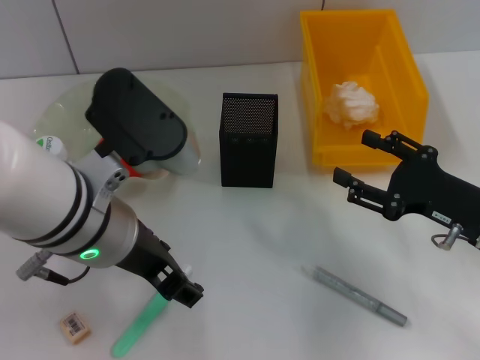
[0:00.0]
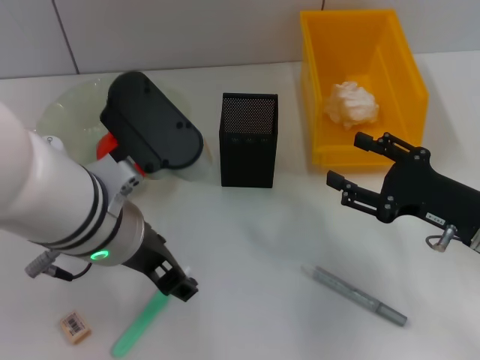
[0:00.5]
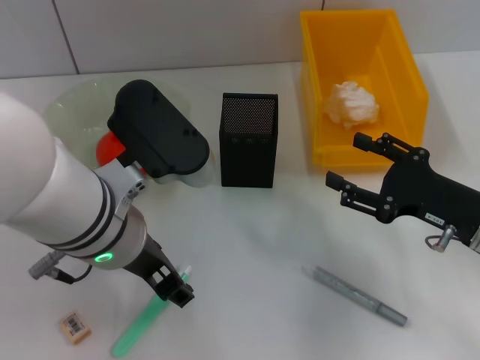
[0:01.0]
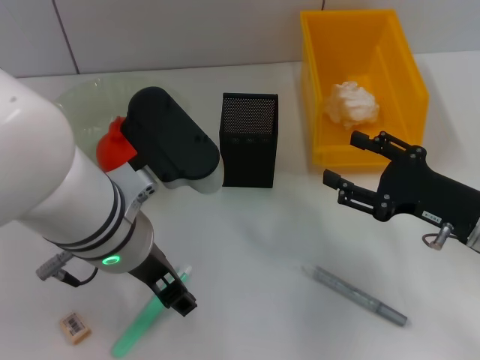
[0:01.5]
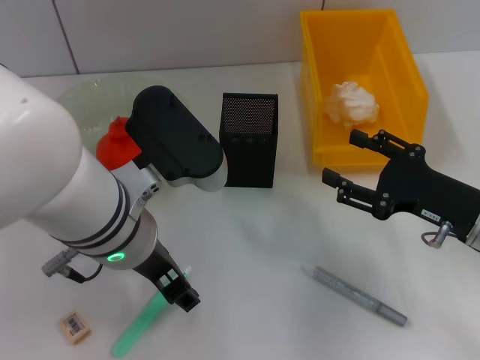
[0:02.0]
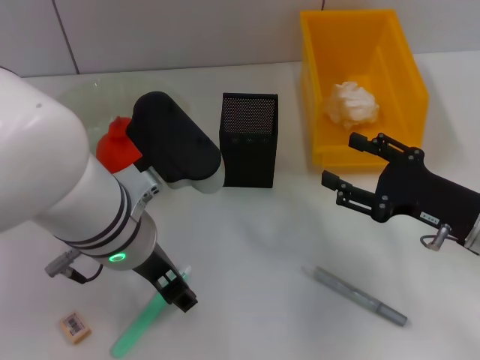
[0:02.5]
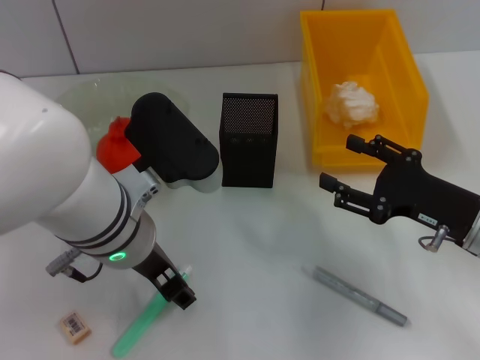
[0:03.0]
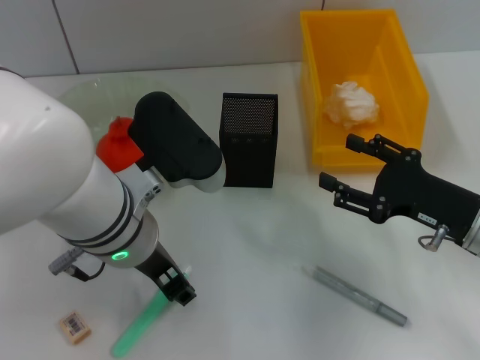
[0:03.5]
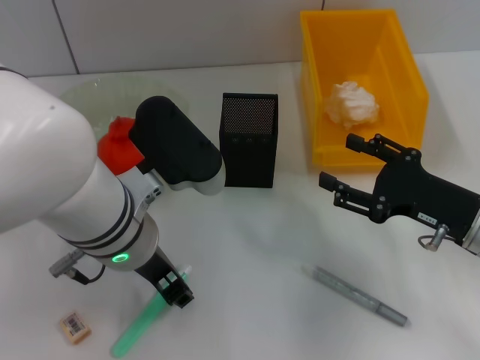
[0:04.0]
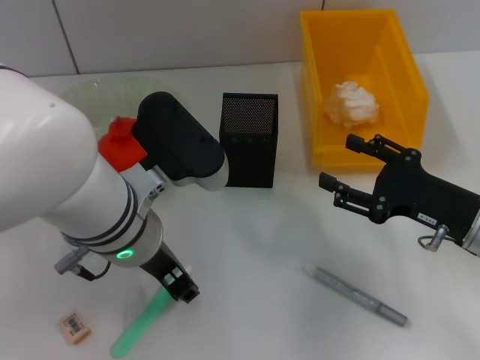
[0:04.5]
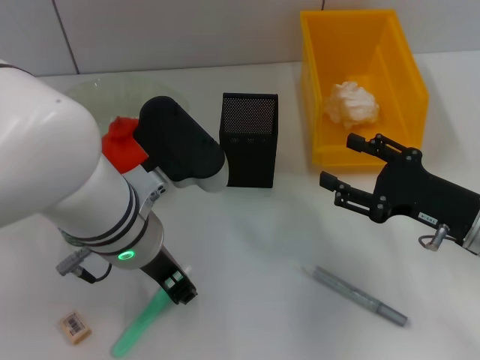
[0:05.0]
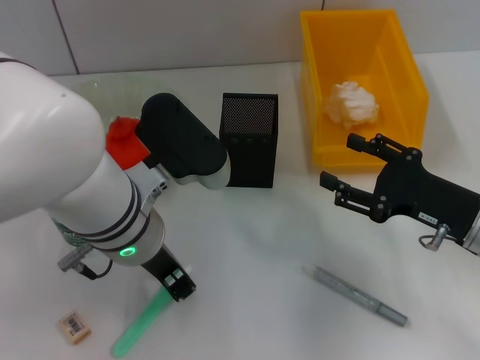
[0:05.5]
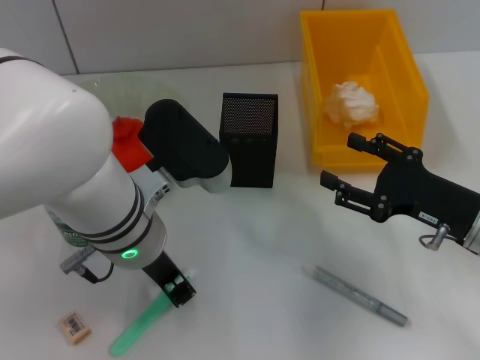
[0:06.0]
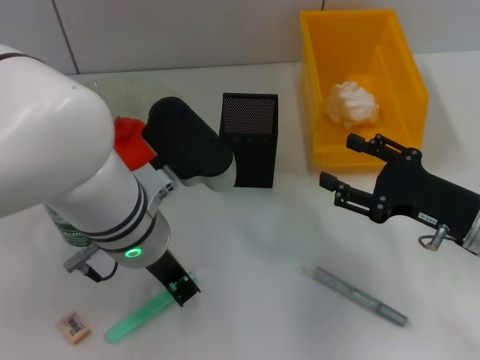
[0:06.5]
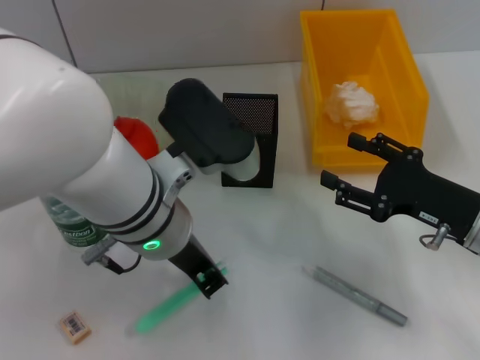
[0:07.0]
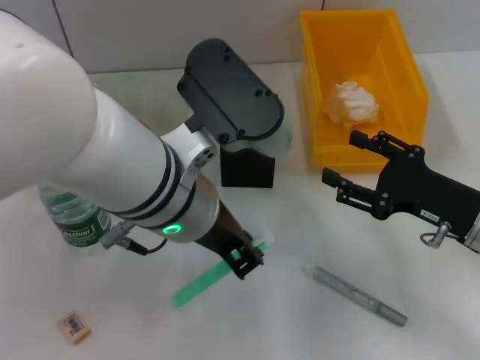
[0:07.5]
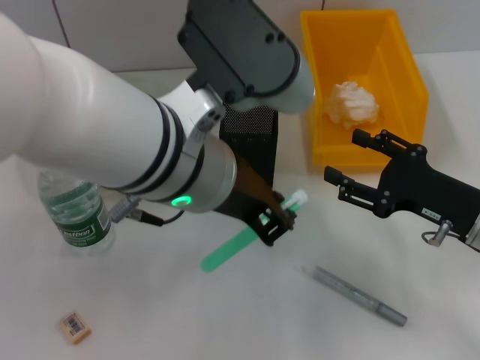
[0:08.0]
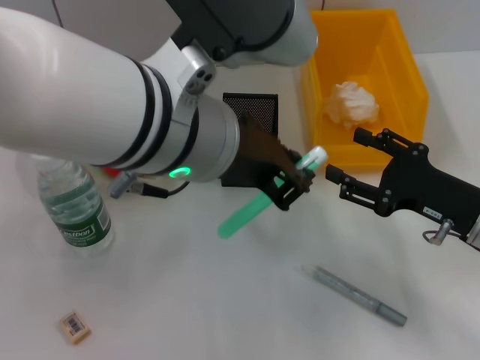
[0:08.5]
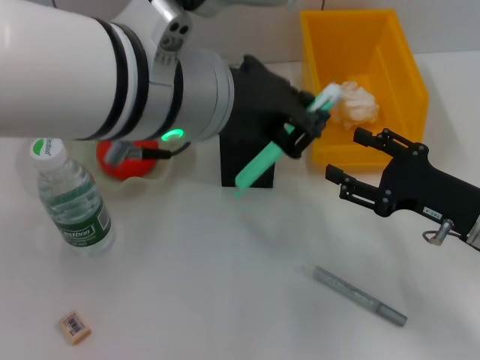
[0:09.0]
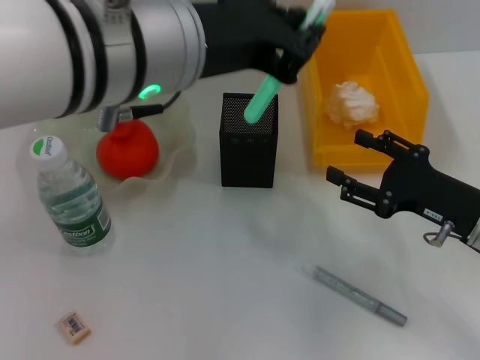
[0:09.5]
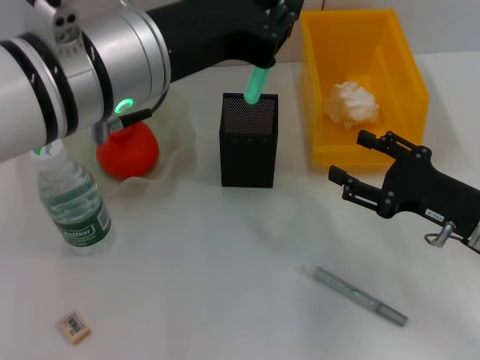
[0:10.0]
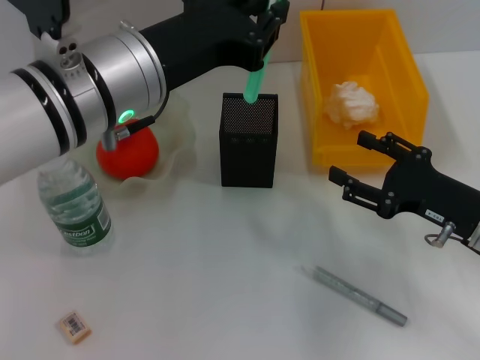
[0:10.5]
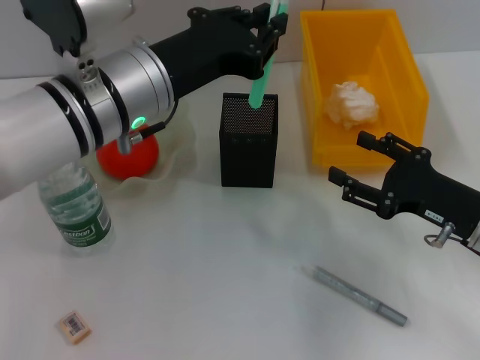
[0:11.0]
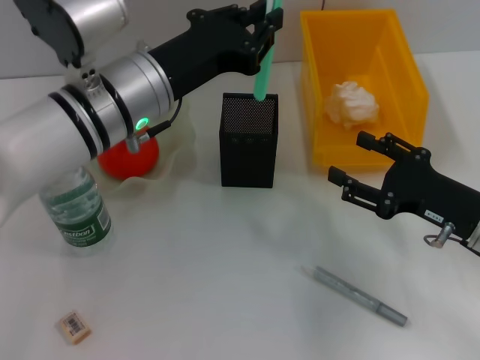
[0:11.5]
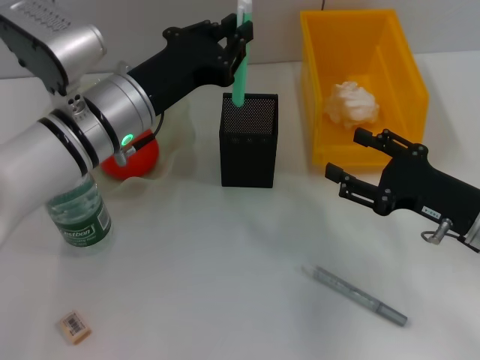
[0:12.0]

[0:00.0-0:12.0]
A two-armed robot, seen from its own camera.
Step, 0:00.0 to 0:06.5: Grab the blue utility knife with the left hand.
0:00.0 to 0:04.0: The grippers stay close to where they were, moving slightly.
0:04.0 to 0:06.0: The left gripper closes up.
0:06.0 to 0:08.0: The left gripper goes some 10 cm upward.
0:08.0 to 0:10.0: The left gripper moves about 5 cm.
0:10.0 to 0:12.0: The left gripper heads downward and forward, covering about 15 cm.

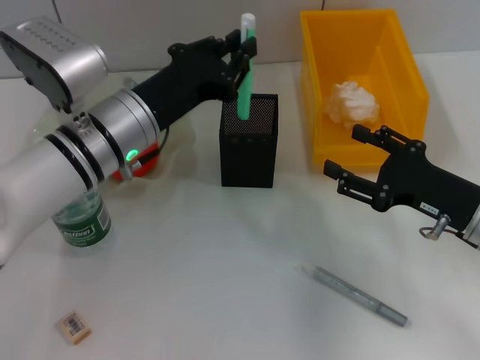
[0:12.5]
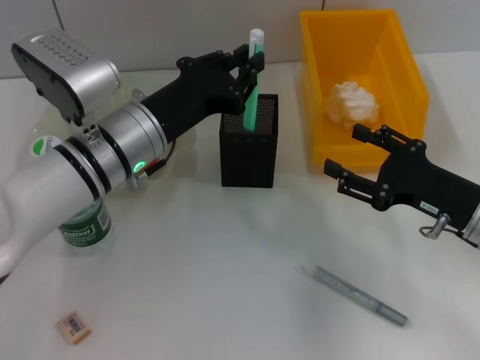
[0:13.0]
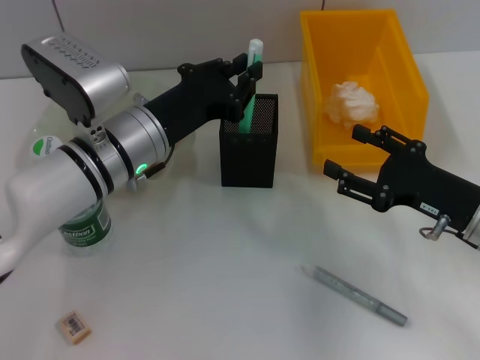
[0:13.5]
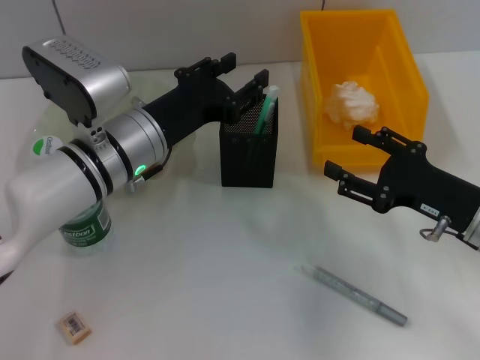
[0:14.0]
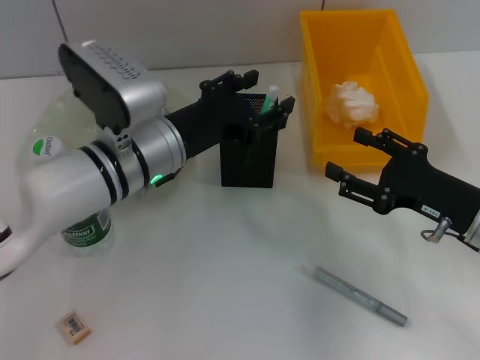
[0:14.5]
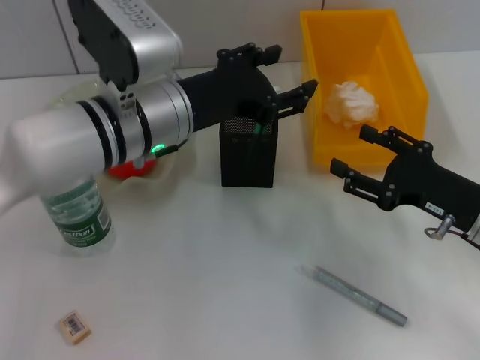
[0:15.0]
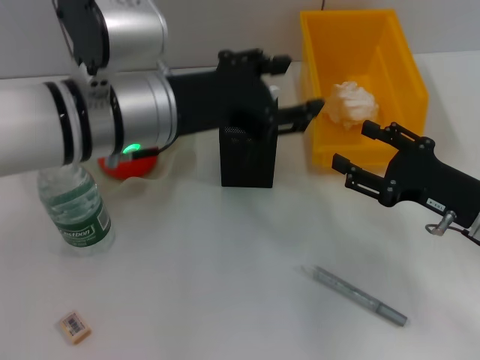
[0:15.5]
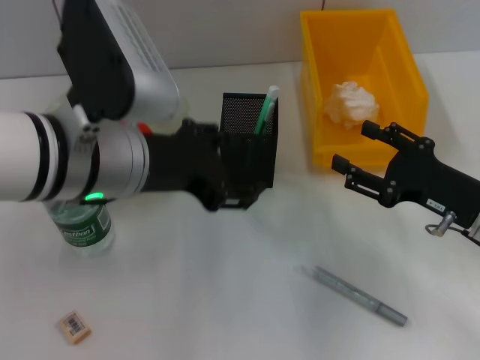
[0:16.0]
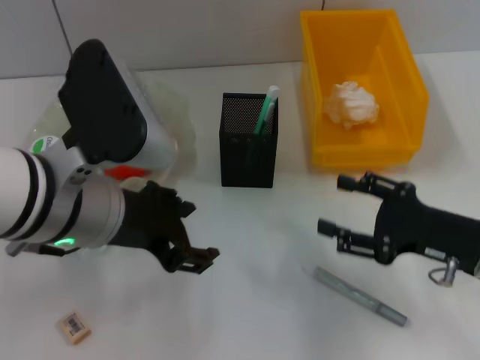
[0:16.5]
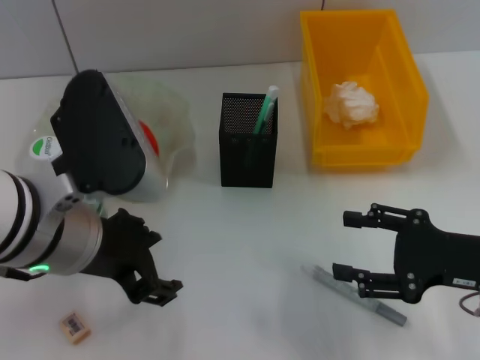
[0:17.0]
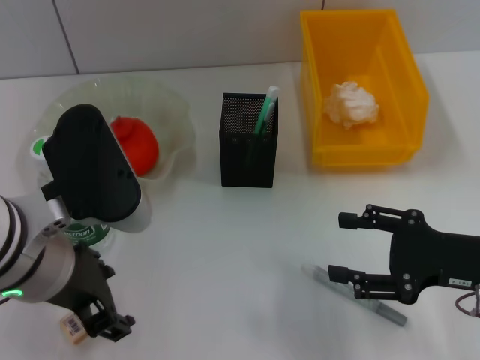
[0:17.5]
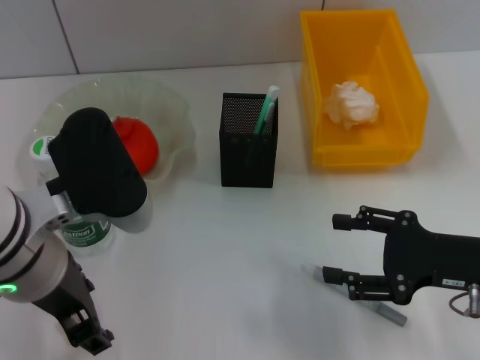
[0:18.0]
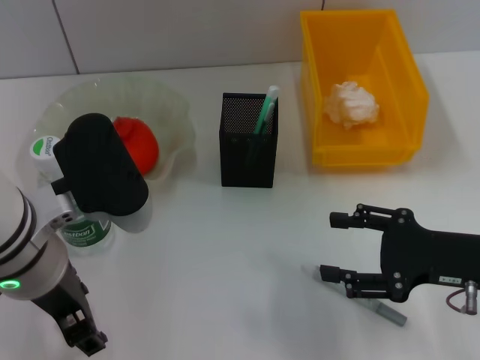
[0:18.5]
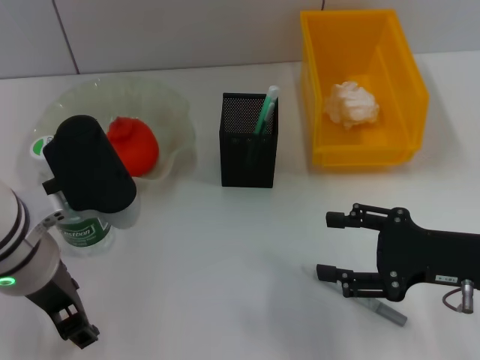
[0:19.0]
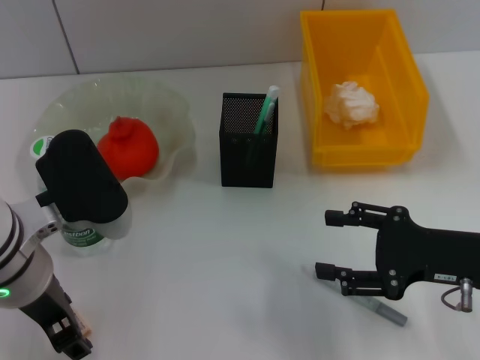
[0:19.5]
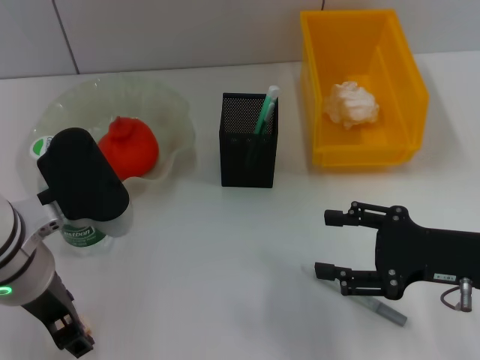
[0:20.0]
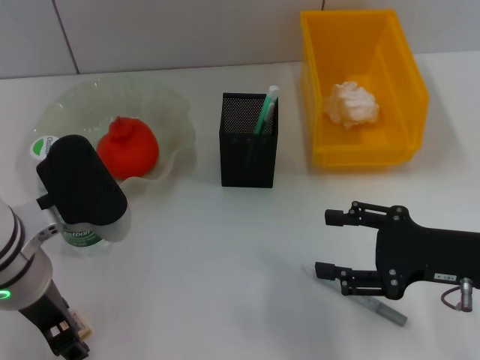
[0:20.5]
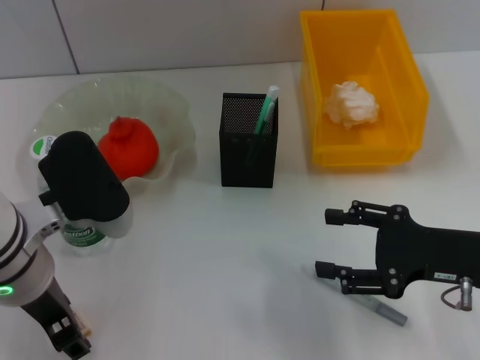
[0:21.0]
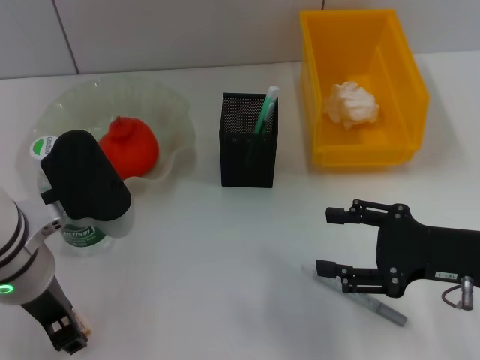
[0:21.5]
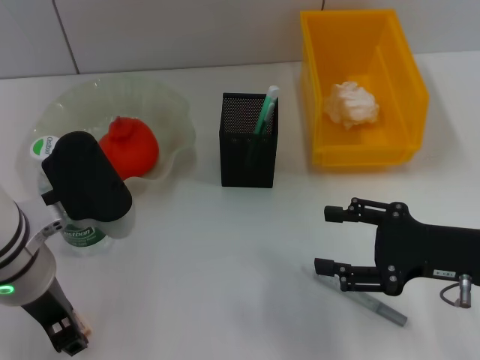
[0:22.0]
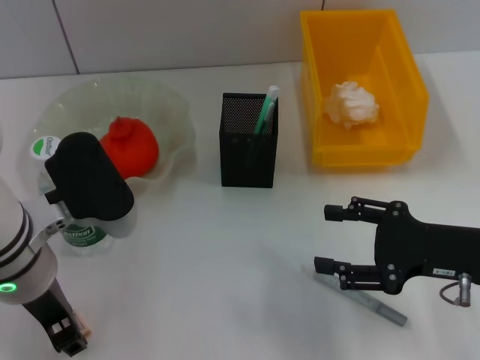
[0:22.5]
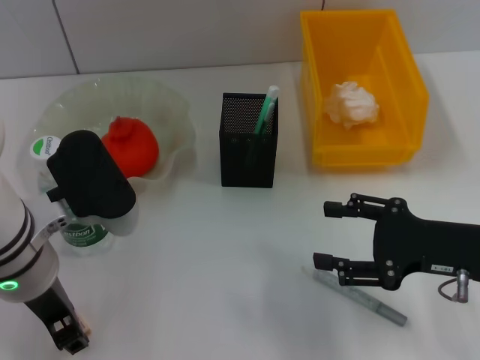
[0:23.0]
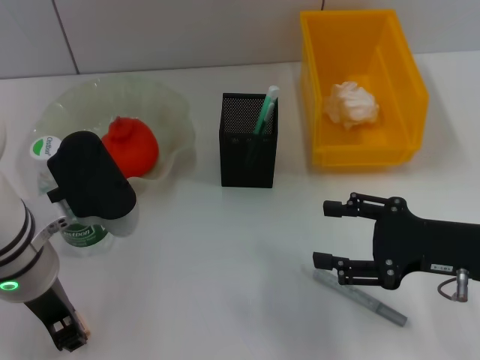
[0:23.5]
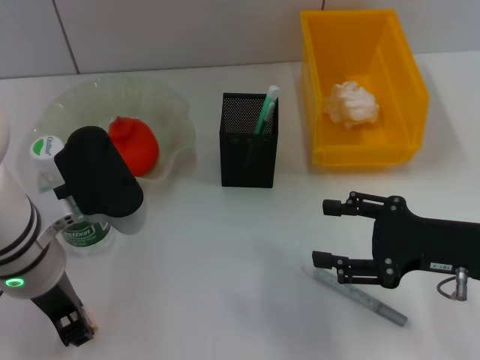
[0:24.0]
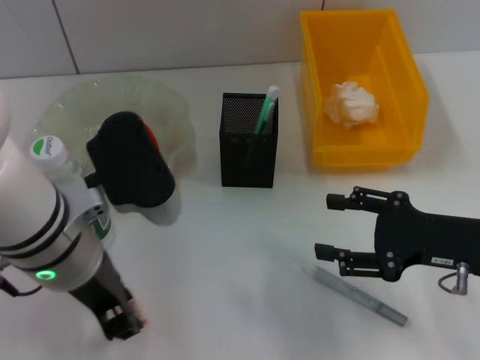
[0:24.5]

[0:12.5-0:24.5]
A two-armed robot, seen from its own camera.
Step, 0:14.0 to 0:23.5: Grab the eraser with the left hand.
0:12.5 to 0:14.5: The left gripper opens.
0:14.5 to 0:16.5: The left gripper goes about 10 cm upward and backward.
0:18.5 to 0:20.5: There are only small adjustments of the grippers.
0:20.5 to 0:22.5: Both grippers stay about where they are.
0:22.5 to 0:24.5: The grippers move only a little.

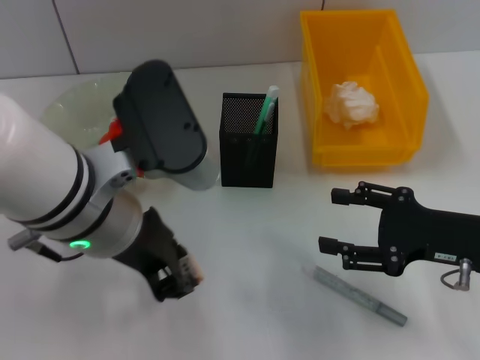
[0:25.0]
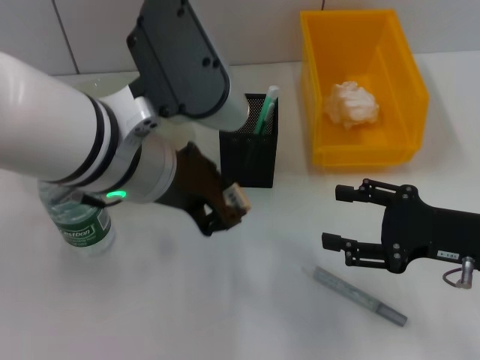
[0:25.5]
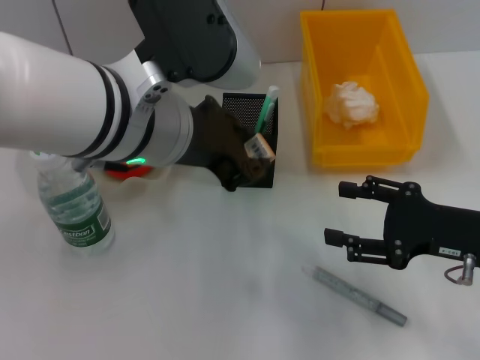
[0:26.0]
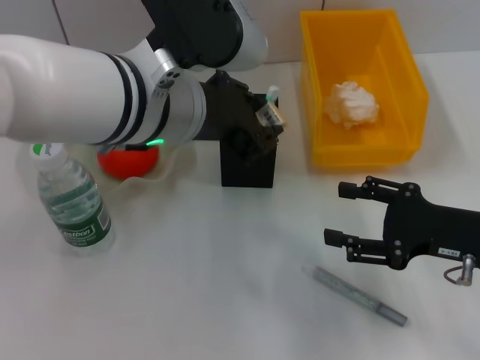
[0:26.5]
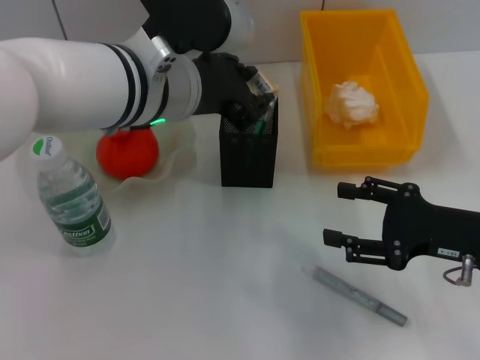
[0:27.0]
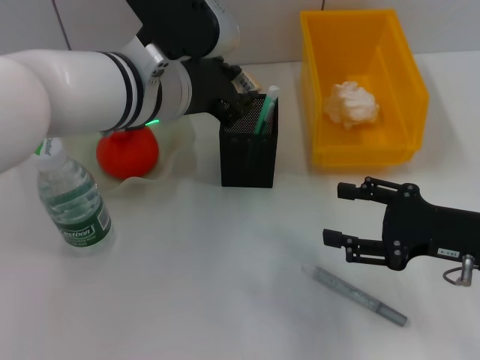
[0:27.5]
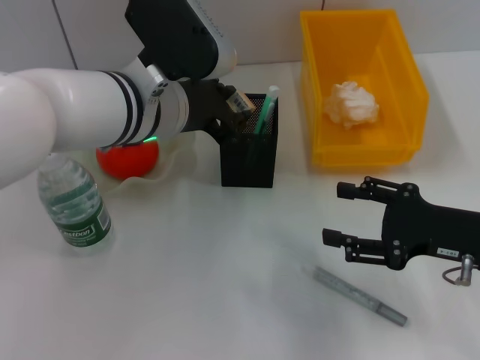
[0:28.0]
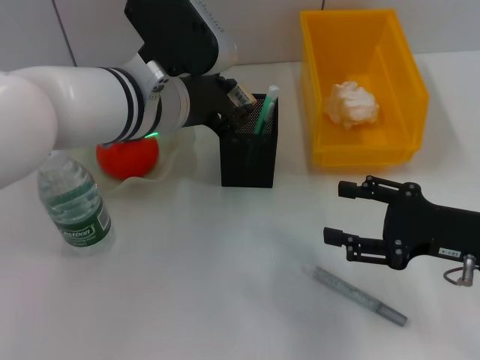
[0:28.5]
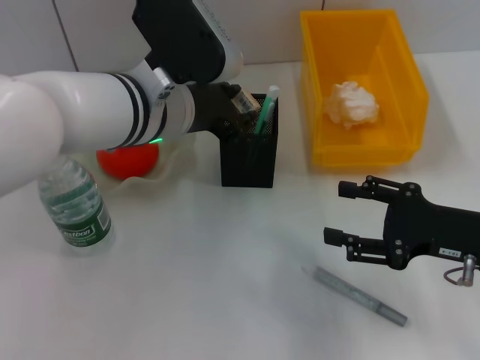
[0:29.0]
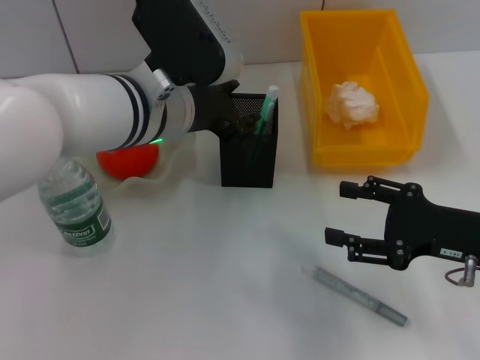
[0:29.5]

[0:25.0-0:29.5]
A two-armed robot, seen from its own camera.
Step, 0:25.0 to 0:29.0: Place the eraser into the pen holder with the left hand.
0:25.0 to 0:27.0: The left gripper travels forward by about 5 cm.
0:27.0 to 0:29.5: The grippers stay close to where they were, moving slightly.
